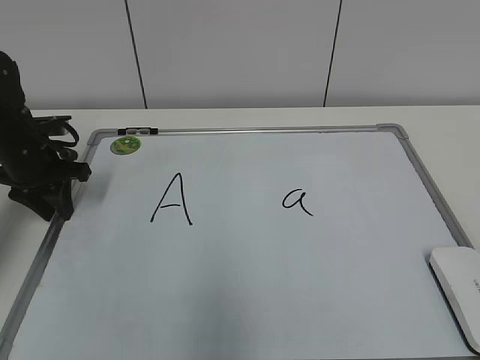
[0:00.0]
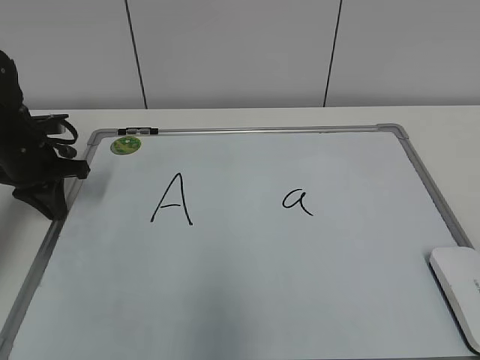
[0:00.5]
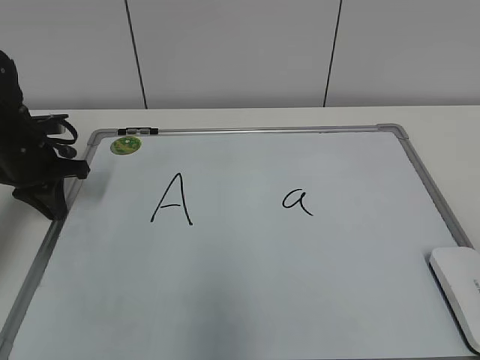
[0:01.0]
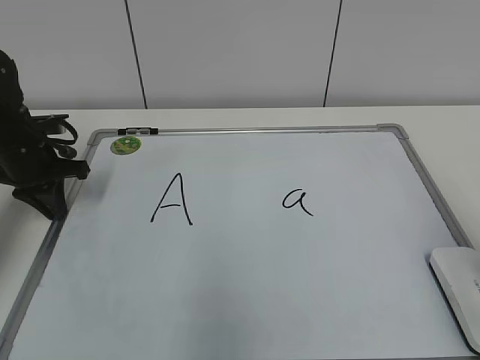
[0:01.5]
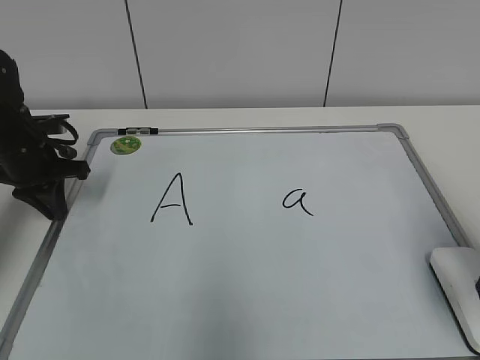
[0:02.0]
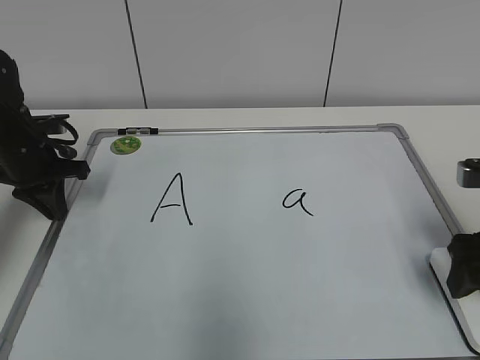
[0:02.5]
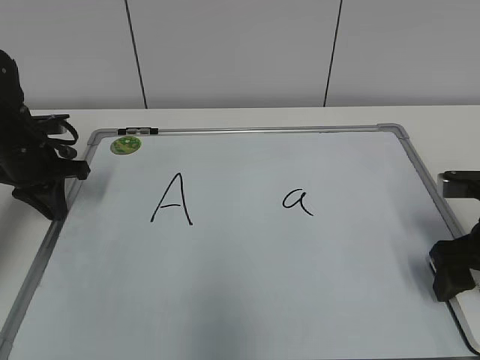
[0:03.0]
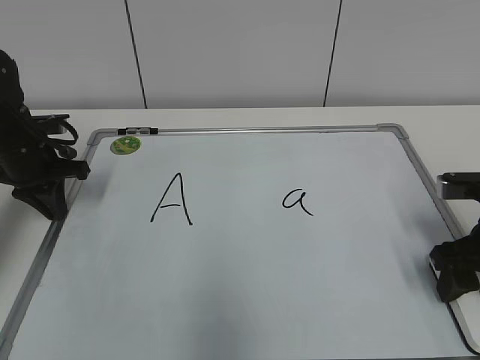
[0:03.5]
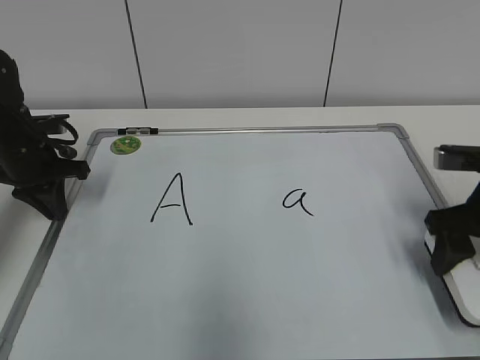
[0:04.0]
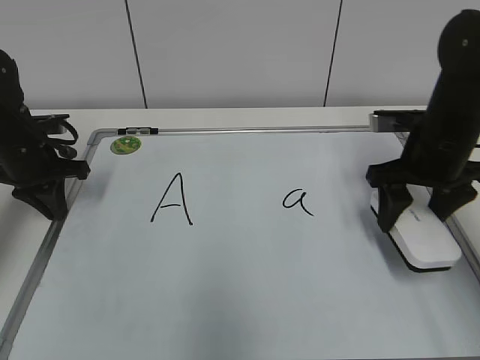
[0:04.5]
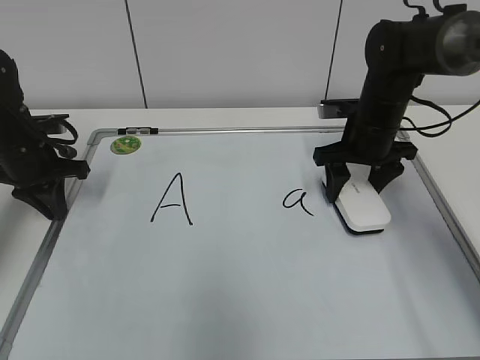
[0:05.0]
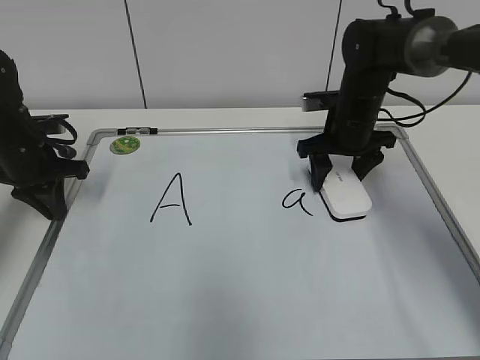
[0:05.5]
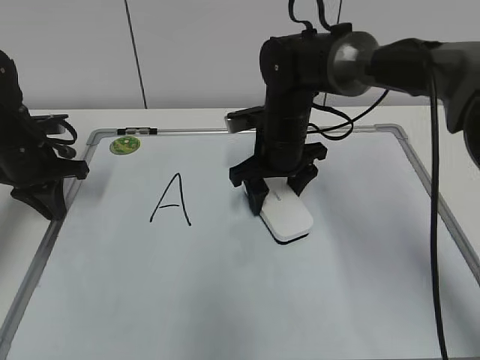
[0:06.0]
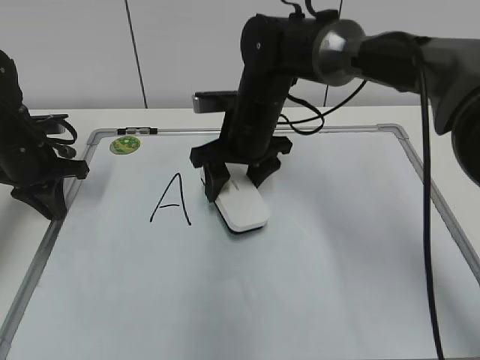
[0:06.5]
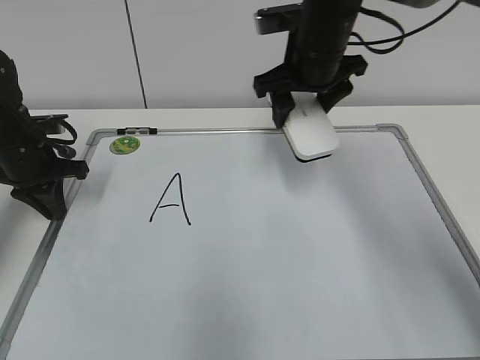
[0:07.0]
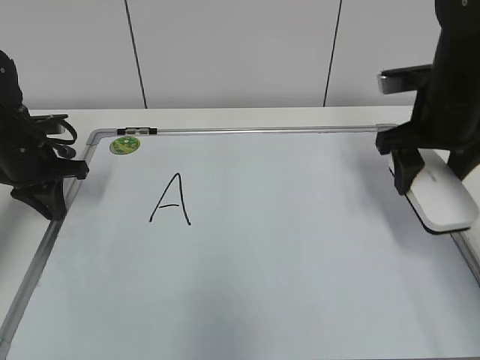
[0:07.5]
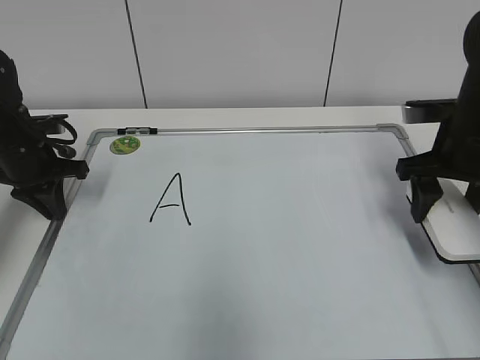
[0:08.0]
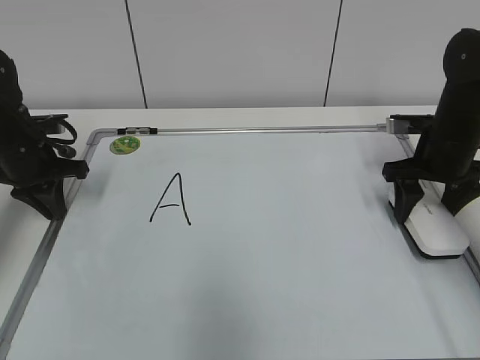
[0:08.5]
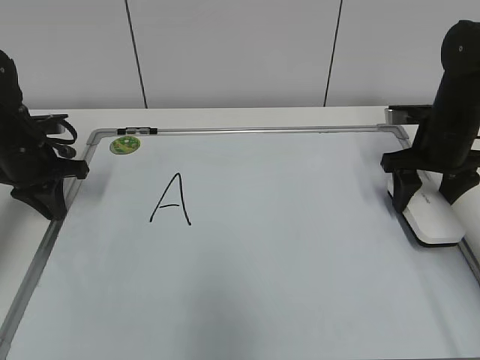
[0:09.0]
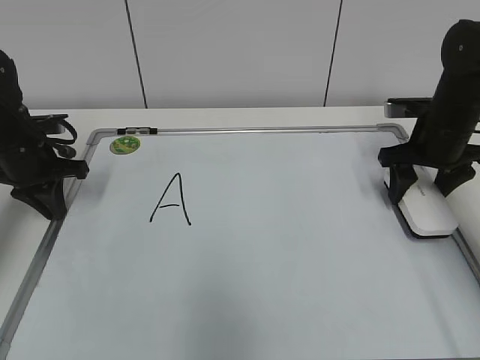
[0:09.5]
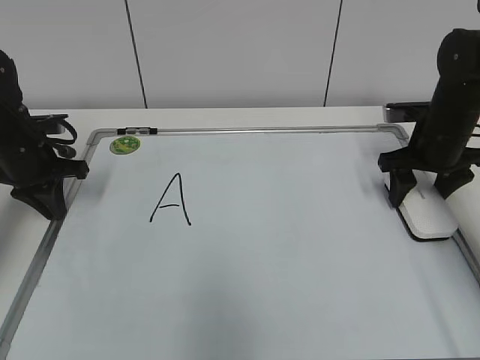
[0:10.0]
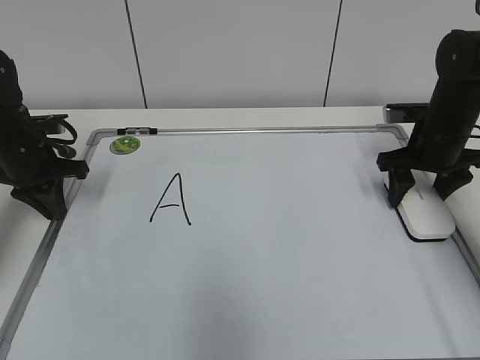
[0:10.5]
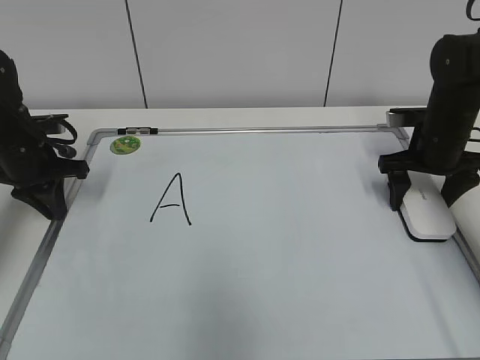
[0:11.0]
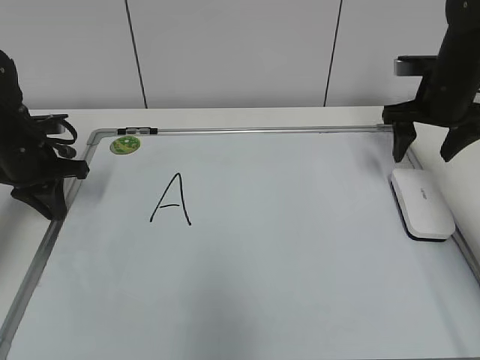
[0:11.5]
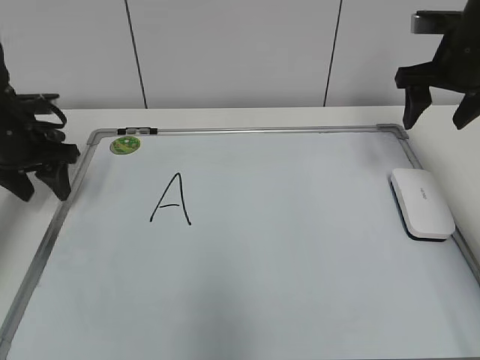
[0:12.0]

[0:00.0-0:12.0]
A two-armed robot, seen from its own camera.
Task of the whole recording: pick up the eraser on the blackboard and erase the letter "a".
Step, 0:00.5 to 0:03.5: Grab the eraser with your right hand.
Step, 0:04.0 to 0:06.0: Erase the letter a with your right hand.
Step, 0:06.5 to 0:11.0: Put down the eraser with your right hand.
0:00.0 to 0:02.0: The right gripper travels forward by some 20 cm, and opens its fingers; the left gripper closes.
0:02.0 to 0:04.0: The right gripper heads forward and downward, covering roughly 10 cm, and closes up.
0:04.0 to 0:06.0: The right gripper shifts approximately 25 cm to the left and forward.
0:06.0 to 0:08.0: The right gripper moves to the right, approximately 20 cm.
0:08.0 to 0:10.0: The right gripper shifts approximately 5 cm forward.
0:10.0 to 0:12.0: The left gripper opens. Meanwhile the right gripper goes some 10 cm upward, and opens up.

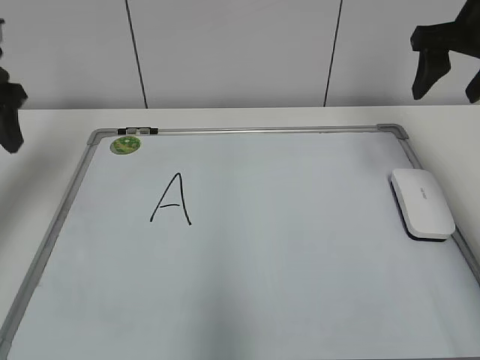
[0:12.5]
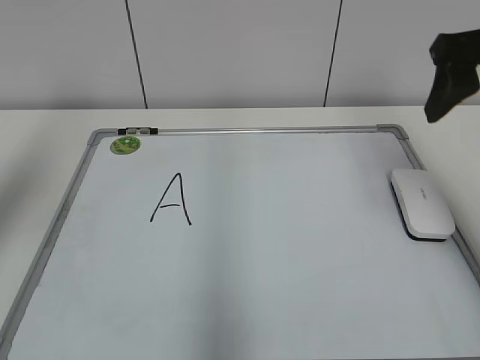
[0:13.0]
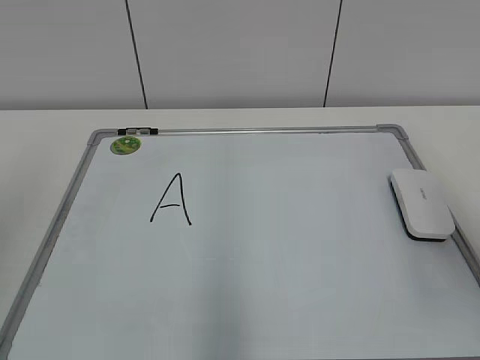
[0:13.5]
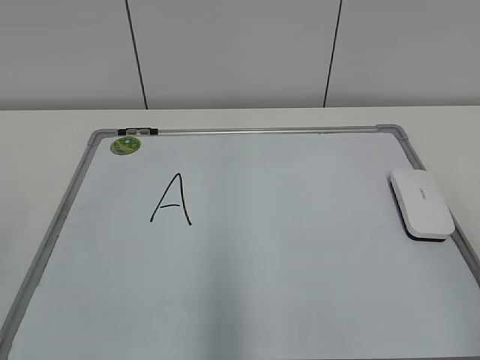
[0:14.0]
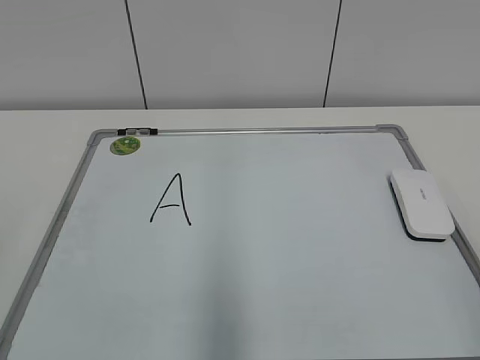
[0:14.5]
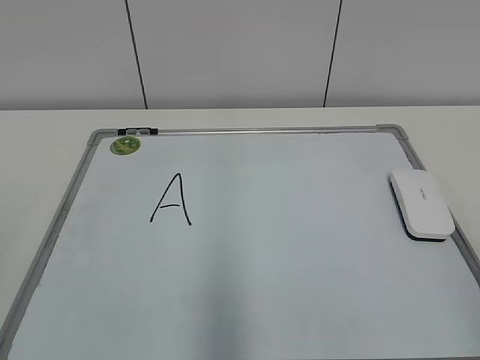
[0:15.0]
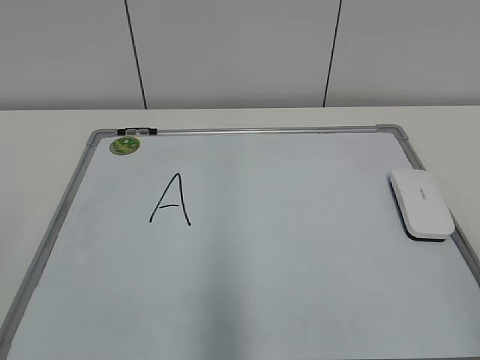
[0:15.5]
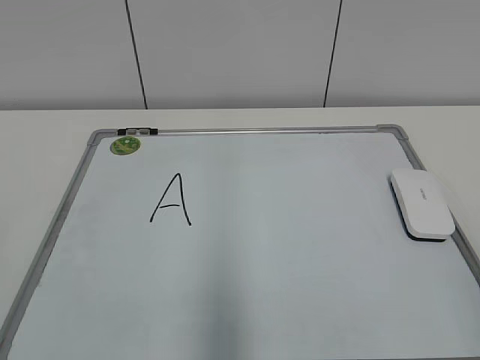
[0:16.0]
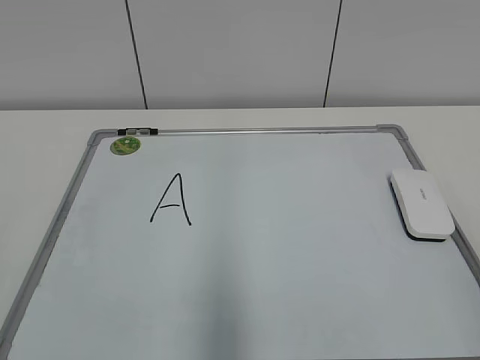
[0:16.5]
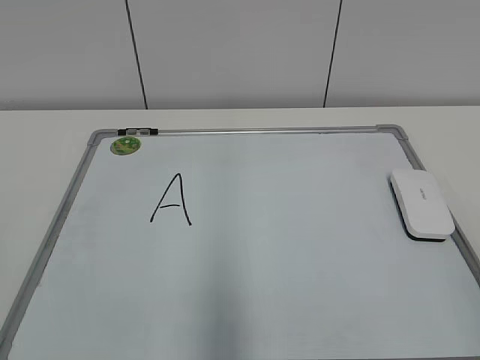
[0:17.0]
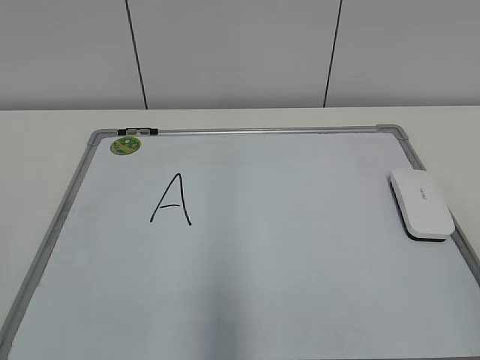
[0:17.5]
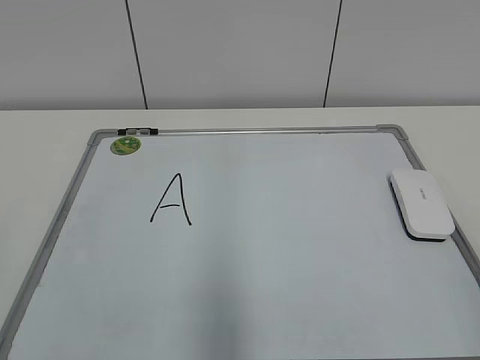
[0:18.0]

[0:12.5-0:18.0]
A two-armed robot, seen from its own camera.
Task of the whole recording: pick up the eraser on the blackboard and erase the letter "a".
0:12.5 to 0:14.5: Both grippers move backward, some 35 cm. The left gripper closes.
0:16.0 to 0:18.0: Both grippers stay about where they are.

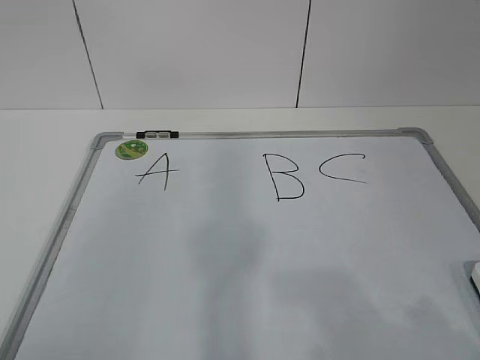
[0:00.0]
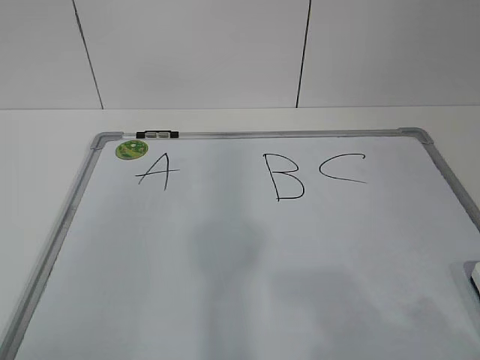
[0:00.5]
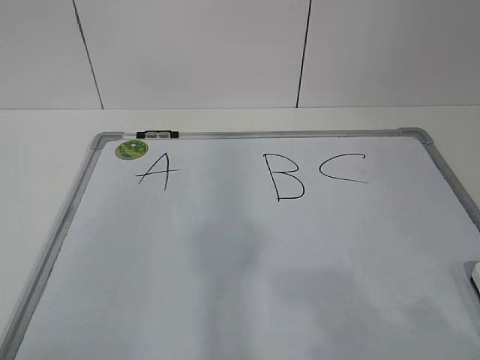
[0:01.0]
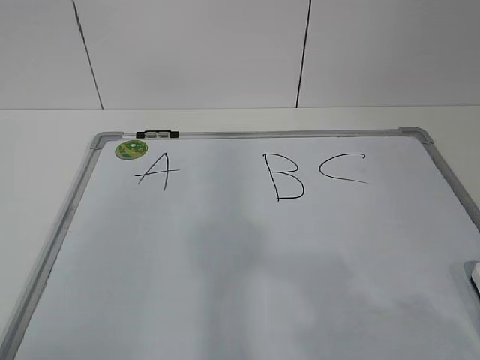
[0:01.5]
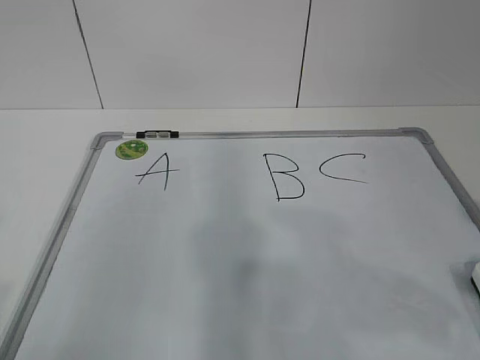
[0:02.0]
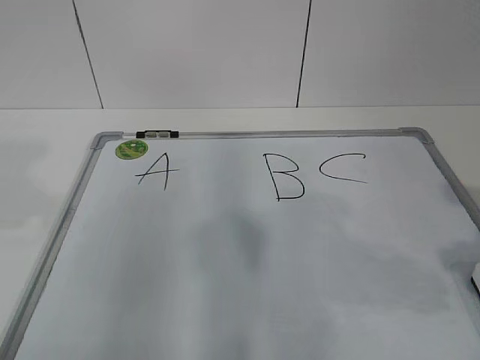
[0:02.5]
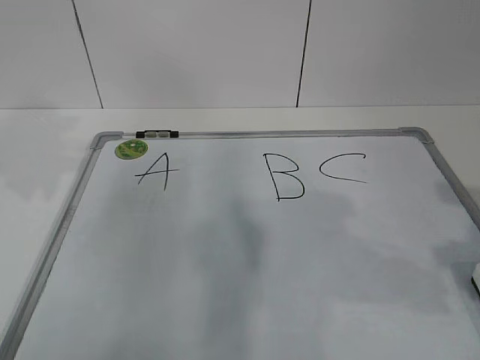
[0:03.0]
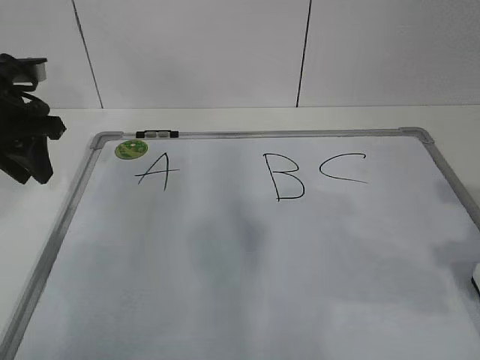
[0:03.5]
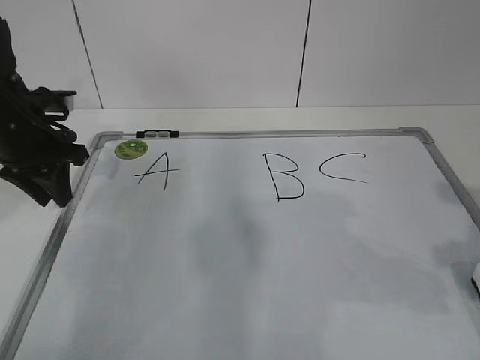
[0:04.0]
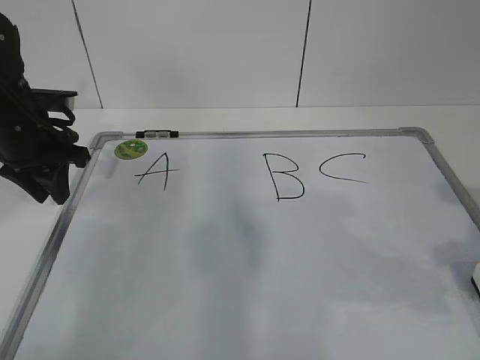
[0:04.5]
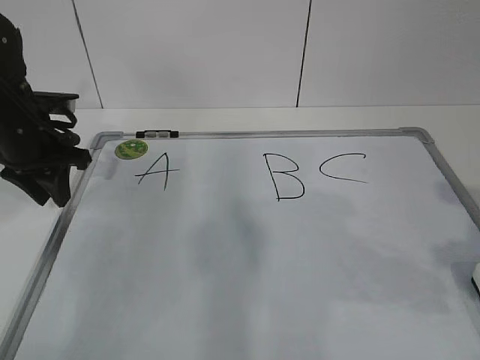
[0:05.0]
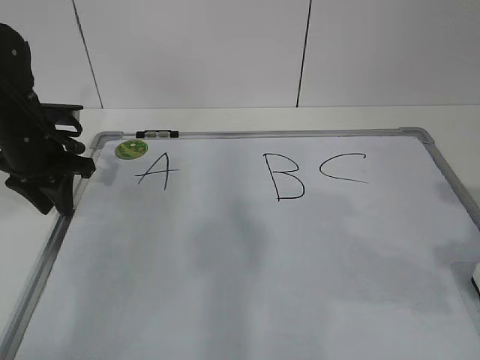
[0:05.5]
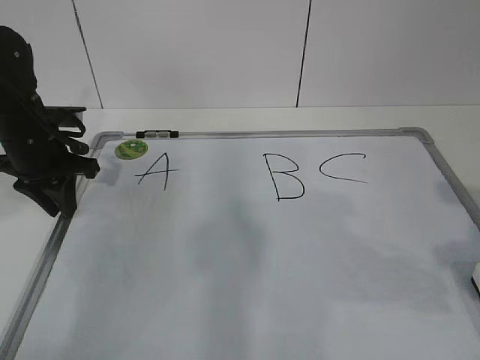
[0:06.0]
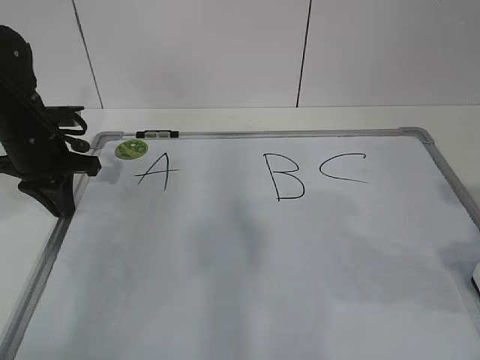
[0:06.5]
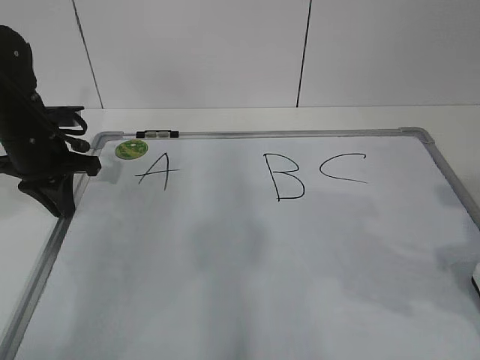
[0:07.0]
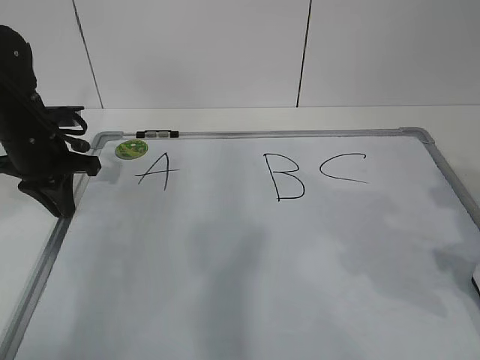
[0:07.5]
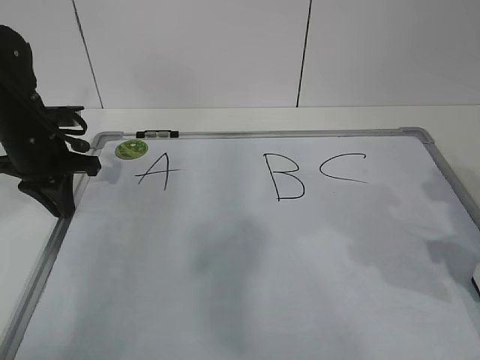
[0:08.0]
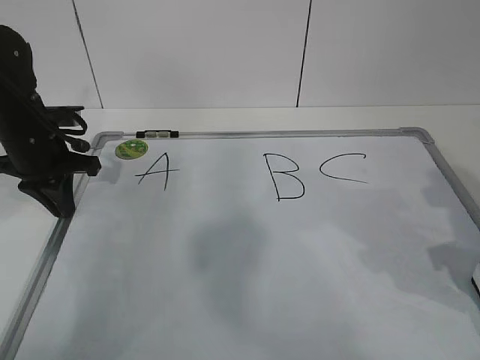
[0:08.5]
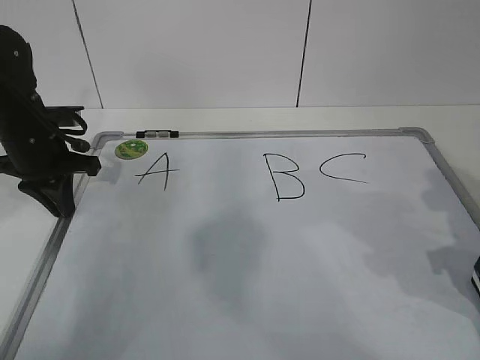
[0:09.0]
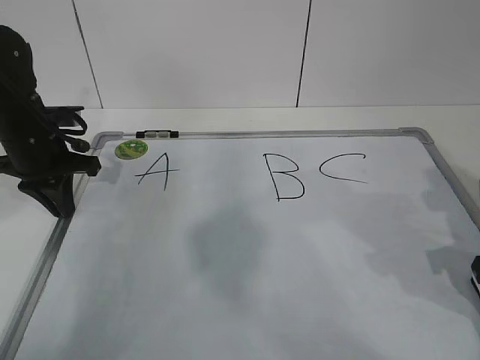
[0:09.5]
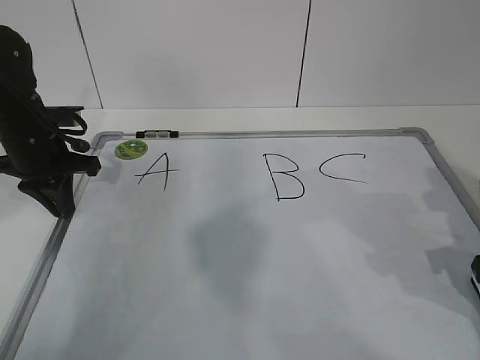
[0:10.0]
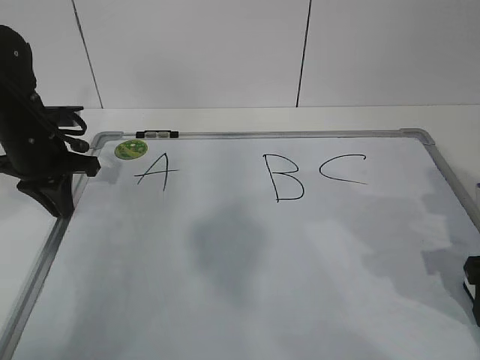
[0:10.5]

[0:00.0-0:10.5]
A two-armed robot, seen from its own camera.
Task of the whole recording: pick up the eraser on the blackboard and erase the letter "B".
Step, 0:00.0 to 0:05.0: Hold the drawing board steady with your left hand.
Step, 0:05.5 to 0:08.0: Grab the eraser with your right hand.
0:02.0 to 0:04.0: The left gripper goes approximately 35 cm forward.
0:04.0 to 0:06.5: The left gripper closes its fingers.
0:08.5 to 0:10.5: The grippers stay close to where they were, moving slightly.
